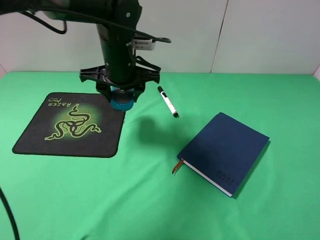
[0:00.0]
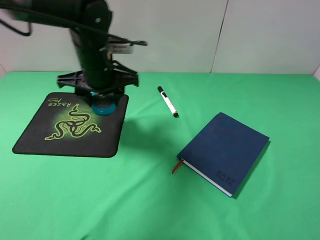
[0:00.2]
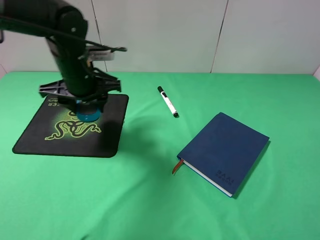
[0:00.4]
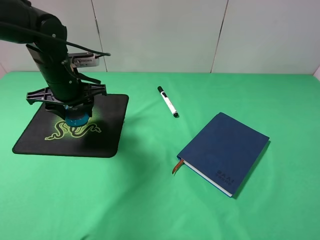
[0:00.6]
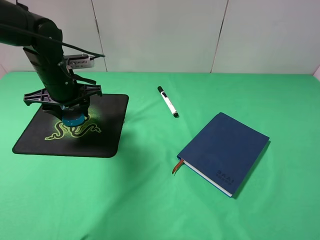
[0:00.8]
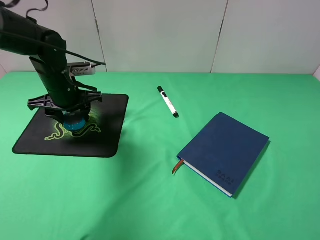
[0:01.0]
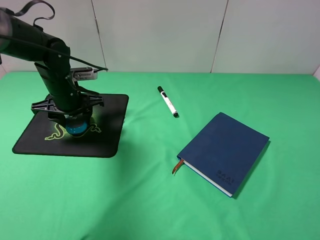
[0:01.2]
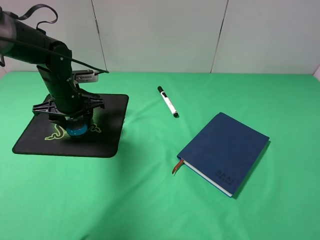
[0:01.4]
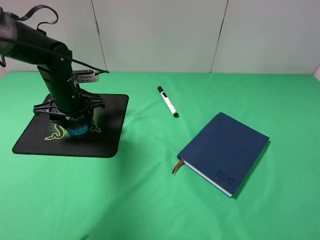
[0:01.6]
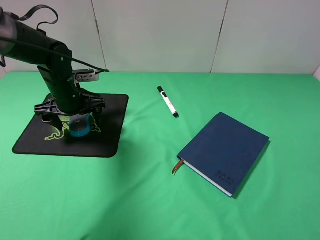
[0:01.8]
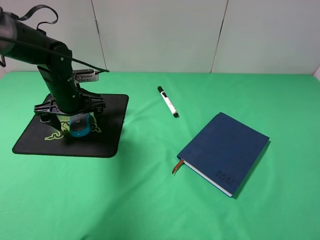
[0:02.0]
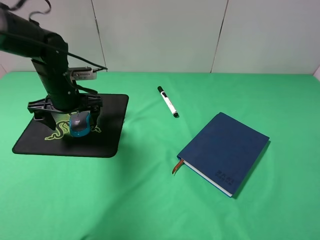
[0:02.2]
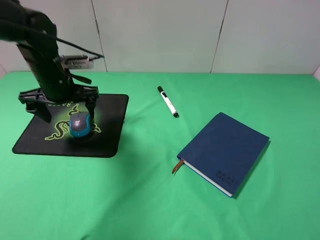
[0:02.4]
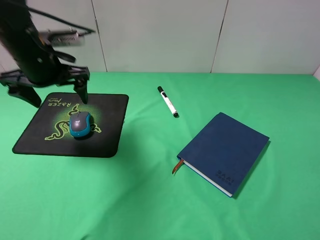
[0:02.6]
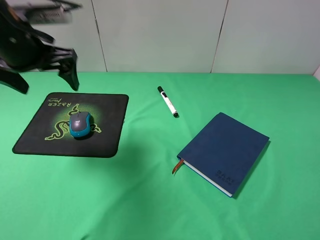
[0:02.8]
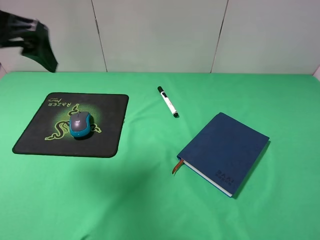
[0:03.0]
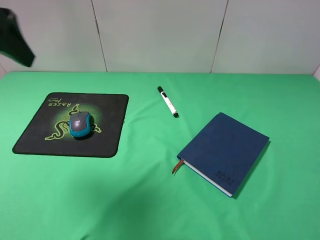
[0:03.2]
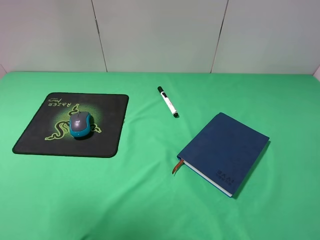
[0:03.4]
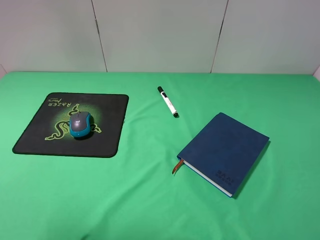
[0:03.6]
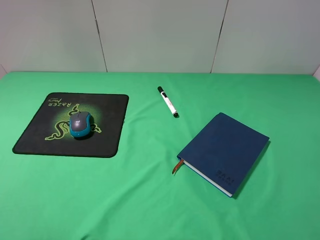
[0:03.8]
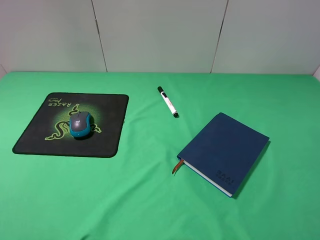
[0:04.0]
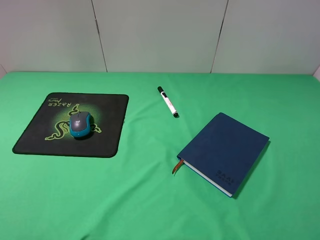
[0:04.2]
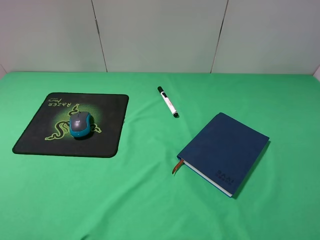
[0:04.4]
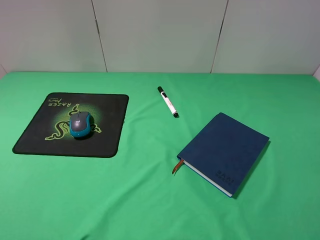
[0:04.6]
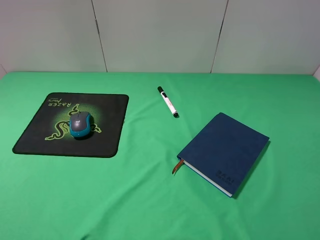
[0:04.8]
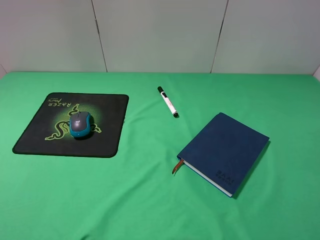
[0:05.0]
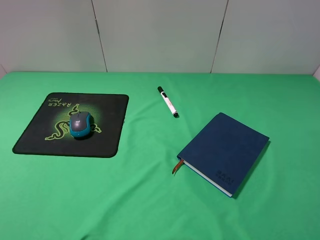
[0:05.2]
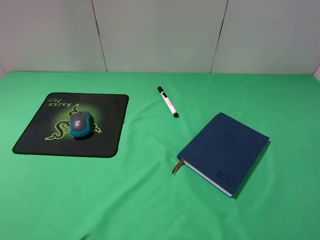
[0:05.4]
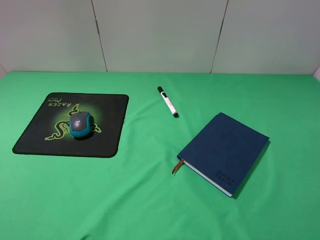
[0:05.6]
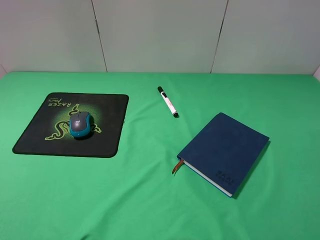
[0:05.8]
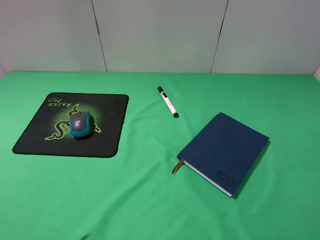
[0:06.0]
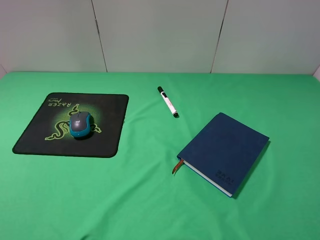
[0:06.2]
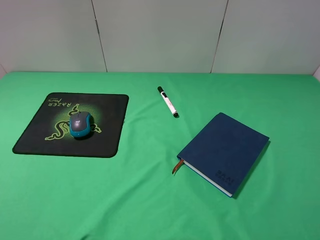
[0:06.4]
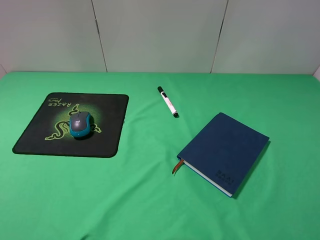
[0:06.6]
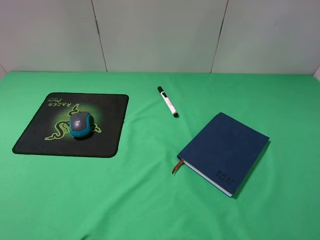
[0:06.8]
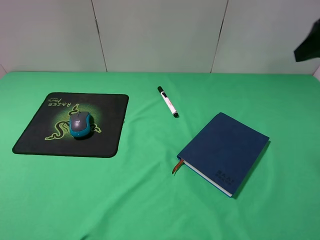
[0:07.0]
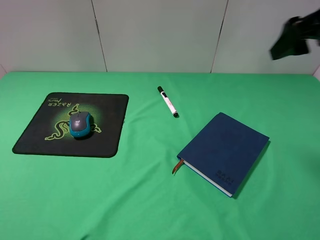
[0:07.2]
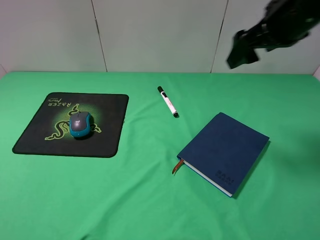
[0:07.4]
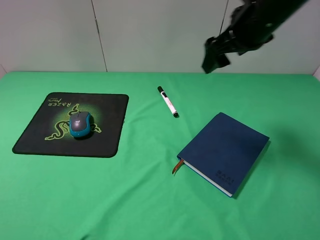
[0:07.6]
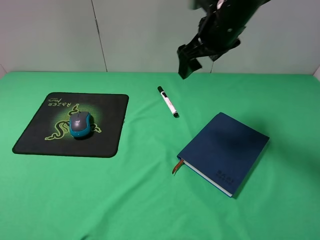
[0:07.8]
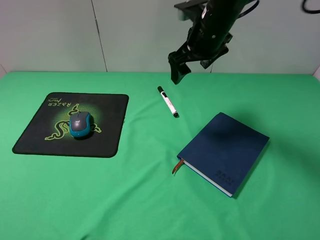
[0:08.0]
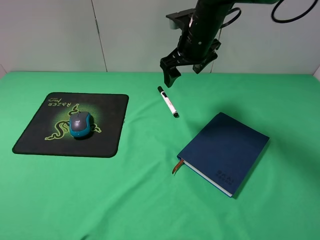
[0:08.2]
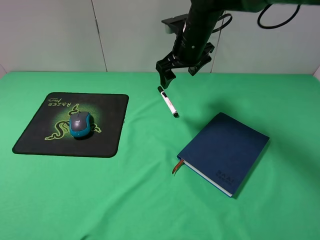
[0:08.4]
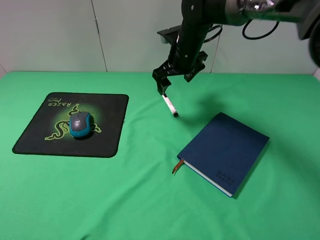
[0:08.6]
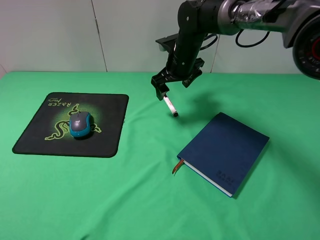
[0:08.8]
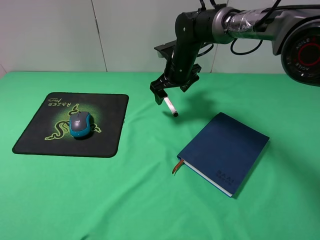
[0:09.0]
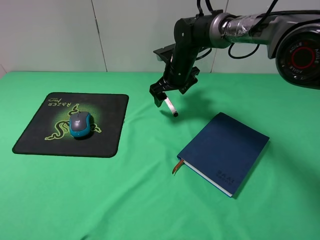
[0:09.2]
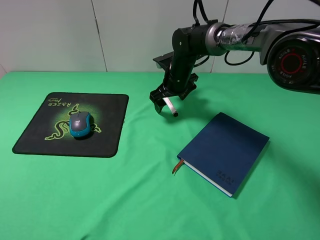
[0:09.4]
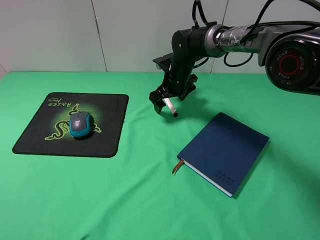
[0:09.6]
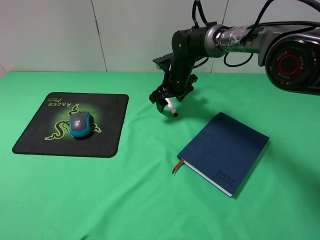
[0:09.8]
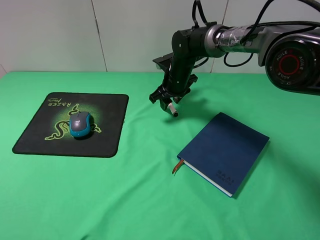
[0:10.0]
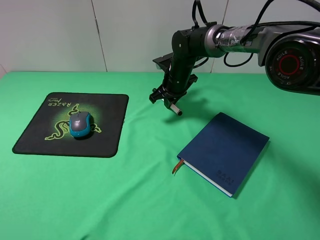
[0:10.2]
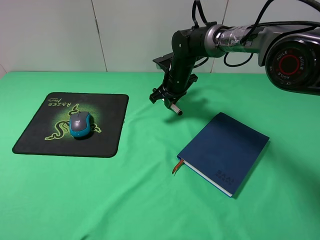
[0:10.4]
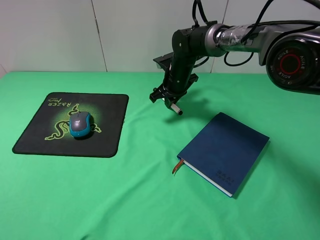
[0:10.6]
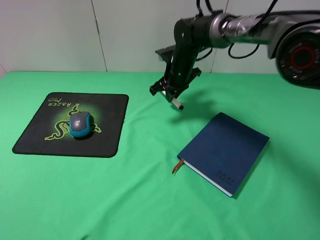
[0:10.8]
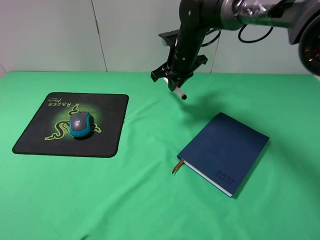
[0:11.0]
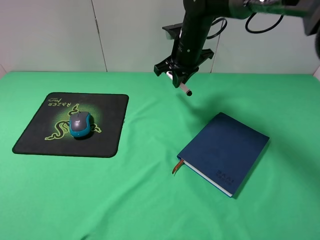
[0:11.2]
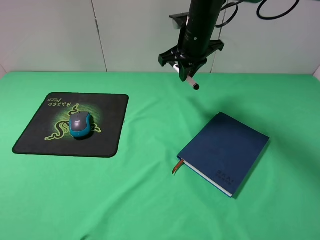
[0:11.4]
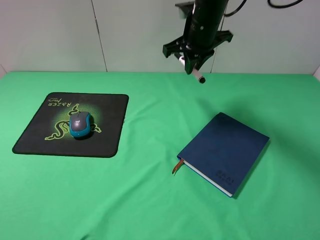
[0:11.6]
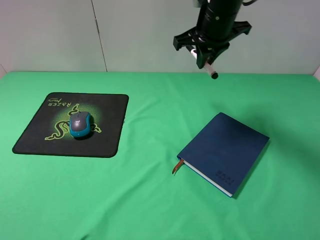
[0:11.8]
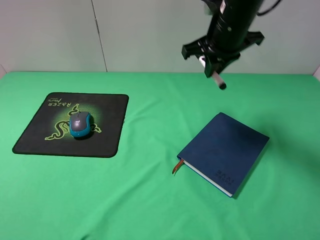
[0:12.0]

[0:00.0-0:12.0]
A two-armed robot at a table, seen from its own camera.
Step, 0:00.0 to 0:02.0: Place the mouse on the mouse pad with the left gripper.
Step, 0:02.2 to 0:10.2: Grasp the marker with the right gripper.
0:00.0 to 0:01.6: The left gripper heads to the left and downward, covering about 15 cm.
0:01.6 to 0:03.0: The left gripper heads upward and backward, covering approximately 25 cm, and opens.
0:03.0 to 0:04.4: The left gripper shifts roughly 20 cm backward.
0:06.0 to 0:07.6: The right gripper moves forward and to the left, about 35 cm.
0:07.6 to 0:09.0: The right gripper travels downward, forward and to the left by some 20 cm.
0:09.0 to 0:10.4: The right gripper closes.
0:10.4 to 0:12.0: The right gripper shifts approximately 20 cm upward, backward and to the right.

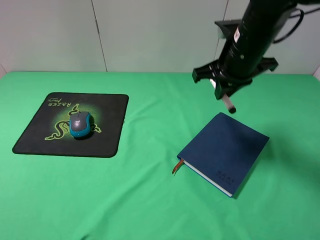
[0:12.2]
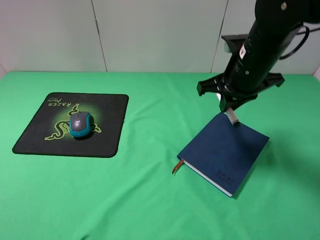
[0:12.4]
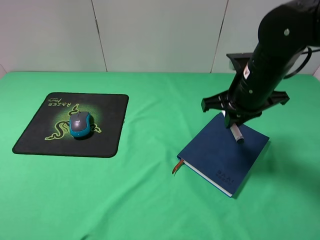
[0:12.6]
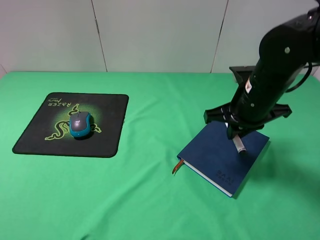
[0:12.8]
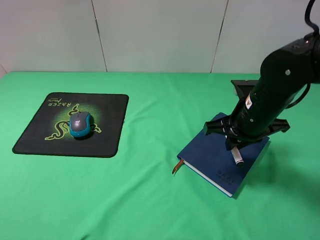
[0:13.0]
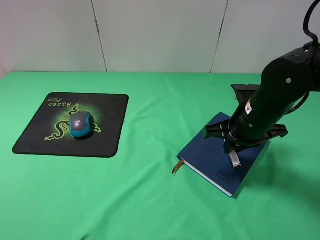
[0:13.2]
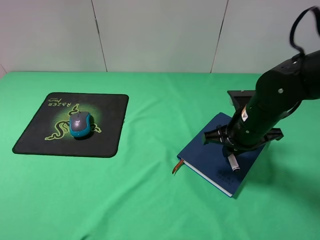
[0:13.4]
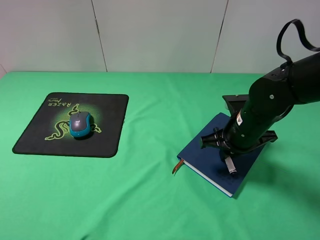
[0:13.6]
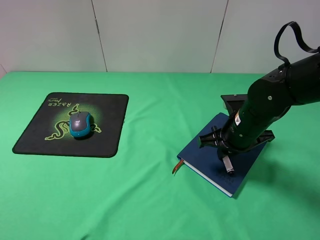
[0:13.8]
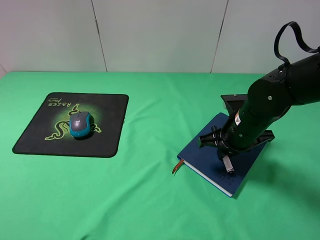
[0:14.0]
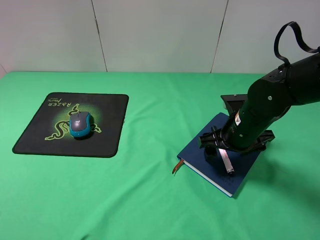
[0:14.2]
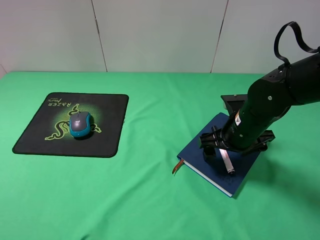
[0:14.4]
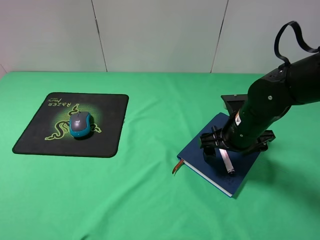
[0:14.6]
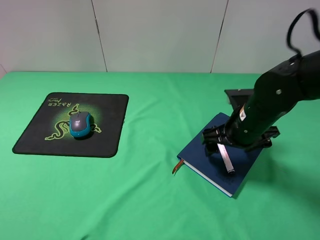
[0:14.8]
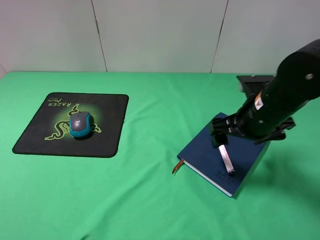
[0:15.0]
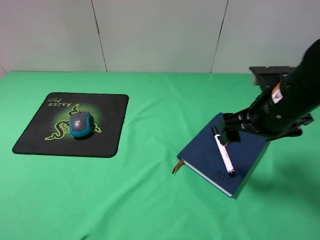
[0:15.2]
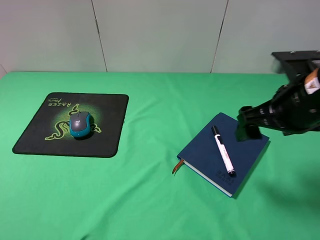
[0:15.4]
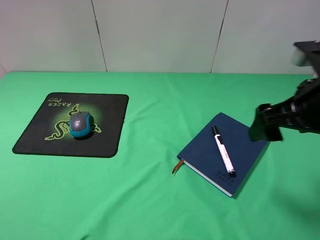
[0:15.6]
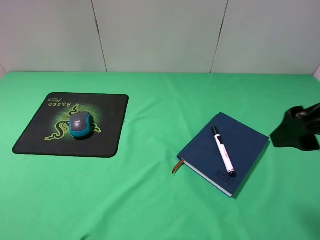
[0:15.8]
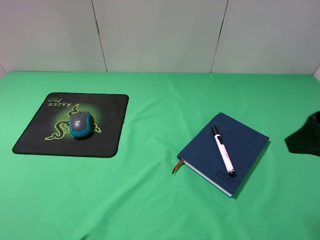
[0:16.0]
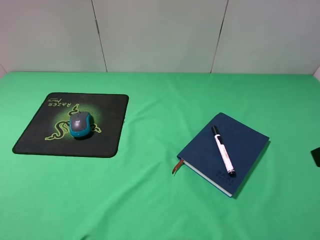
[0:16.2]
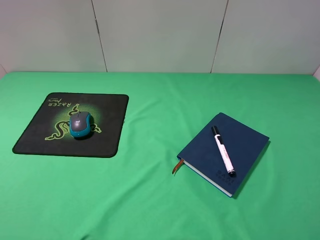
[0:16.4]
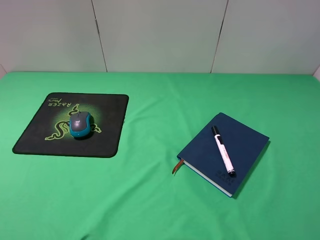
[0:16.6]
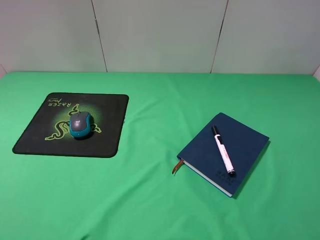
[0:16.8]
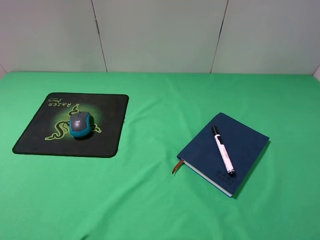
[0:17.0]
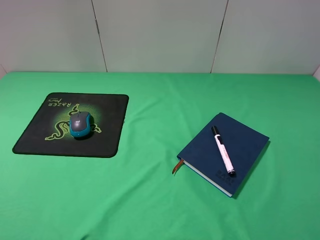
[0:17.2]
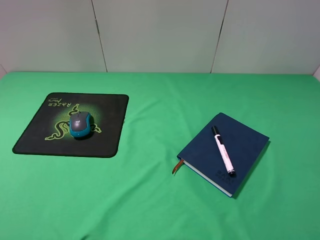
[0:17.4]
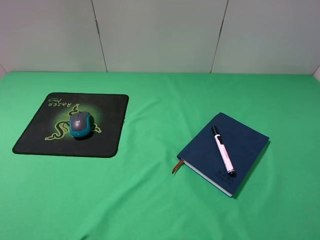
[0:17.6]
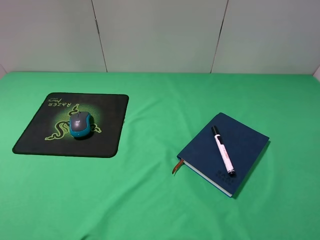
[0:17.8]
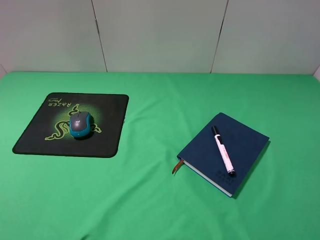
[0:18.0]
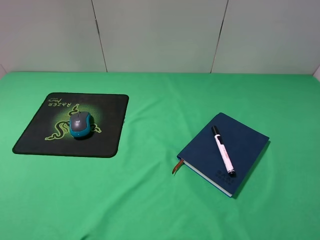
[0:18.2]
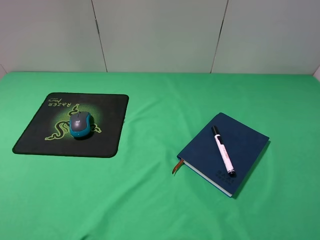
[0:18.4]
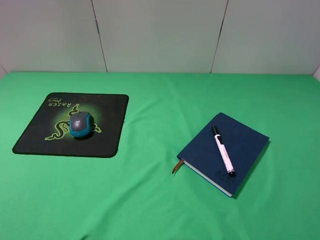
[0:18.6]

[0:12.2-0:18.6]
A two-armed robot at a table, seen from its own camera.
Step, 0:12.2 to 0:14.4: Place the marker on the notebook with the right gripper.
0:12.2 to 0:13.8: The right gripper travels downward by roughly 10 cm.
0:13.8 to 0:15.4: The right gripper travels upward and backward by roughly 15 cm, and opens up.
0:15.4 to 0:17.0: The right gripper travels backward and to the right by approximately 20 cm.
